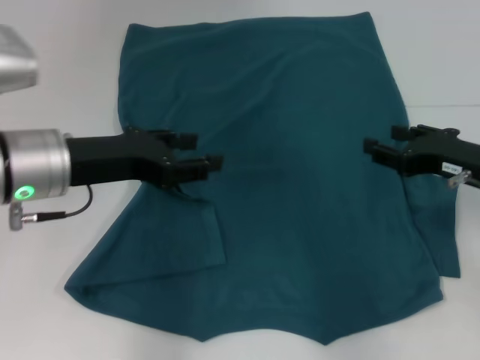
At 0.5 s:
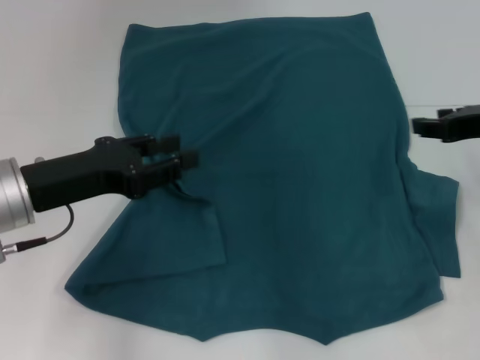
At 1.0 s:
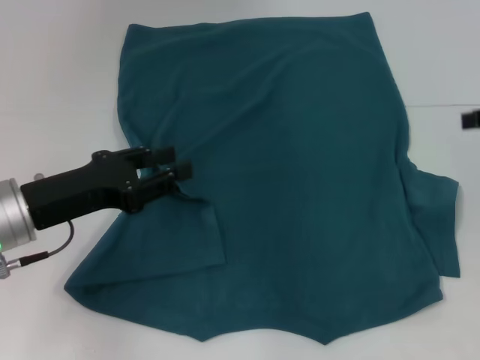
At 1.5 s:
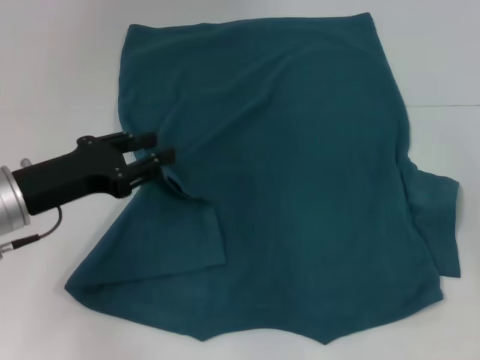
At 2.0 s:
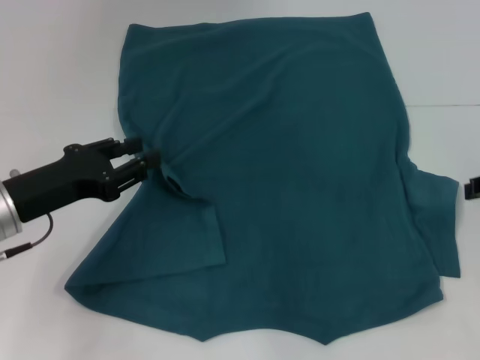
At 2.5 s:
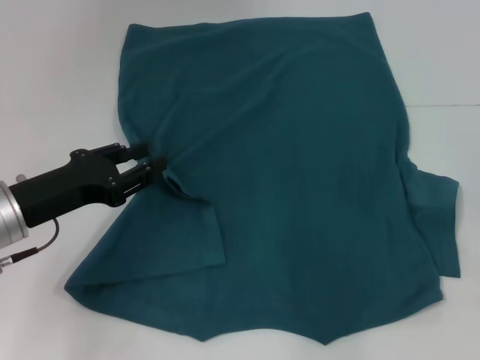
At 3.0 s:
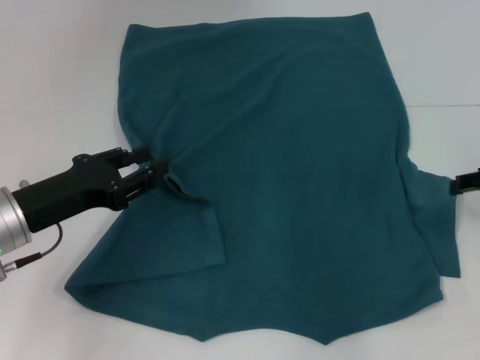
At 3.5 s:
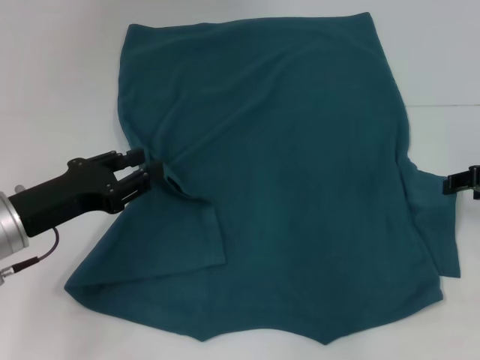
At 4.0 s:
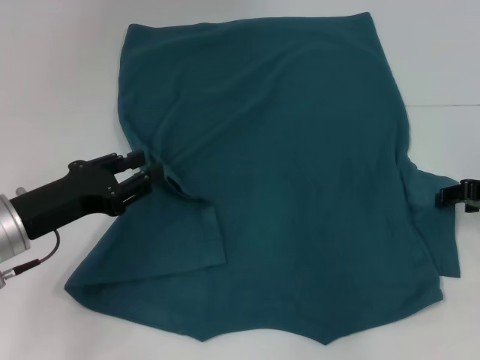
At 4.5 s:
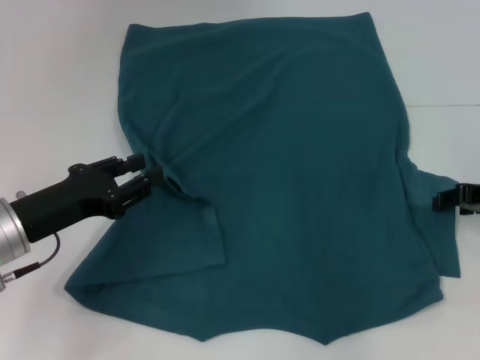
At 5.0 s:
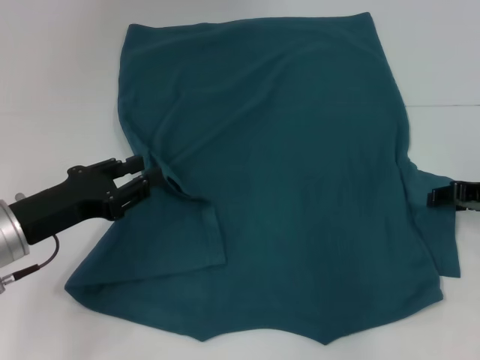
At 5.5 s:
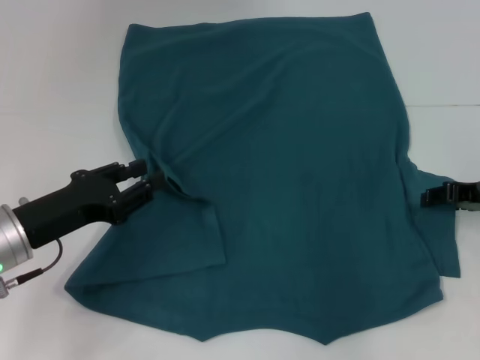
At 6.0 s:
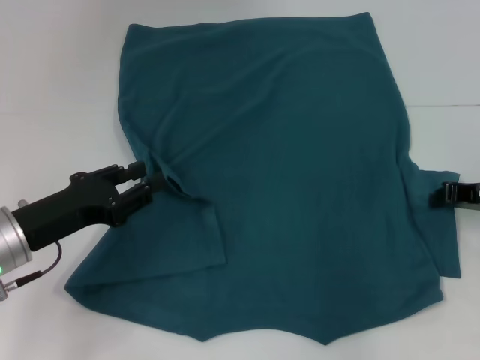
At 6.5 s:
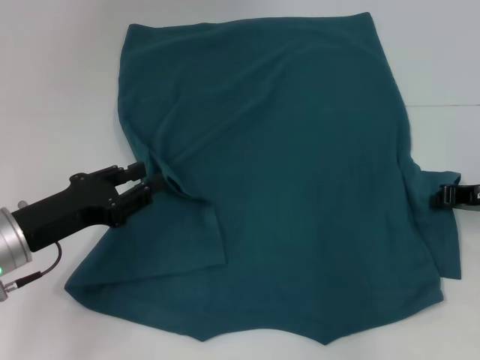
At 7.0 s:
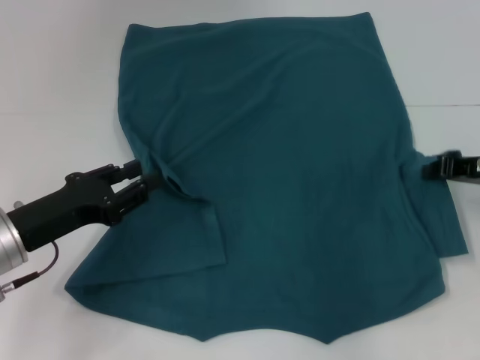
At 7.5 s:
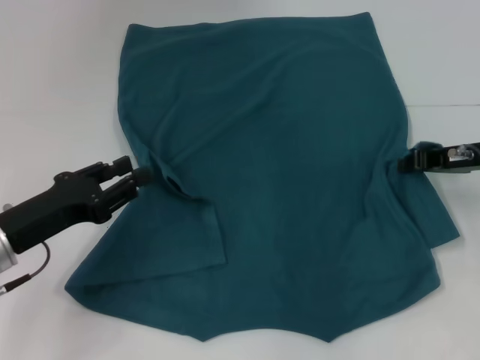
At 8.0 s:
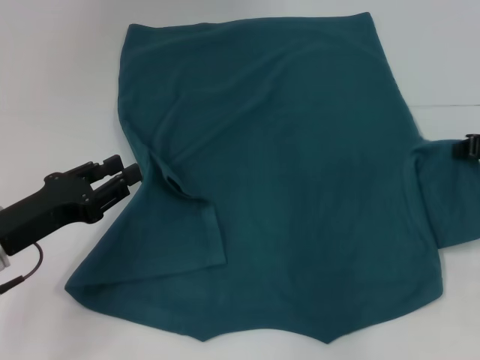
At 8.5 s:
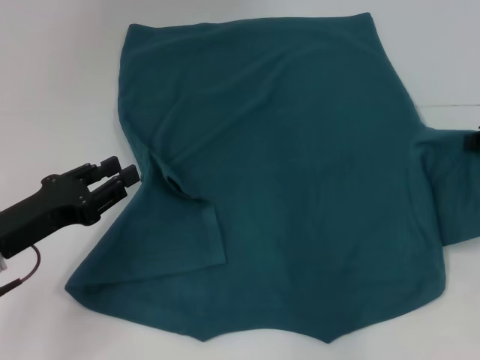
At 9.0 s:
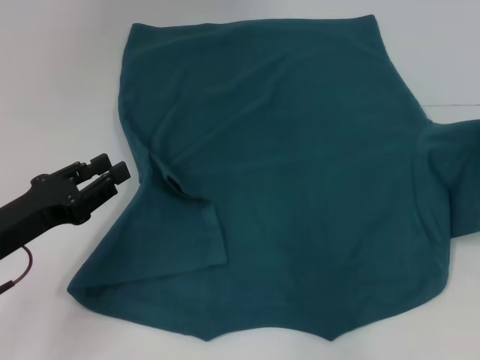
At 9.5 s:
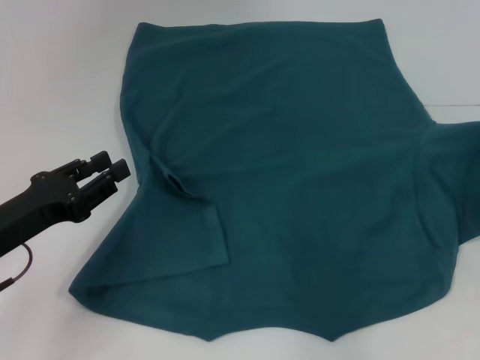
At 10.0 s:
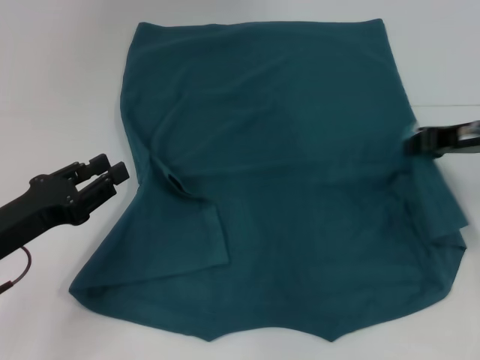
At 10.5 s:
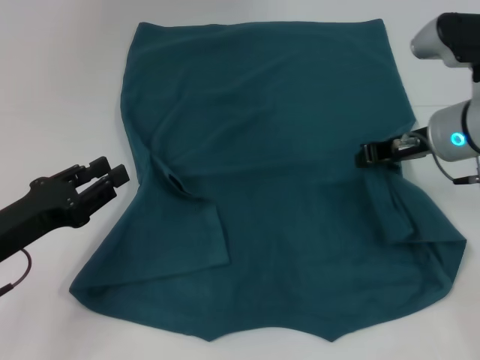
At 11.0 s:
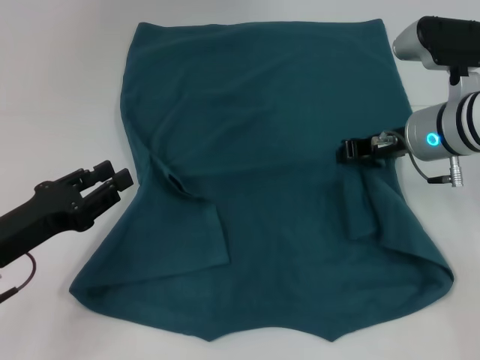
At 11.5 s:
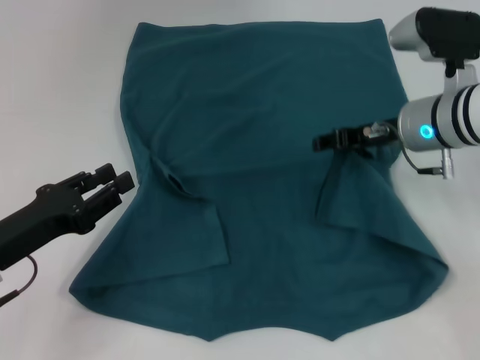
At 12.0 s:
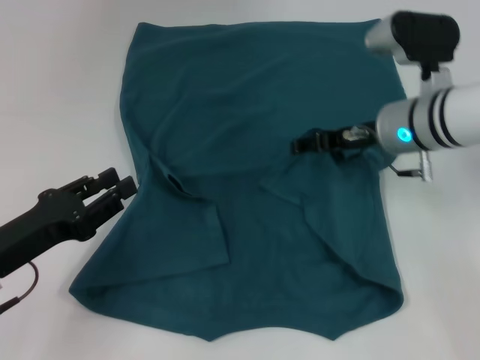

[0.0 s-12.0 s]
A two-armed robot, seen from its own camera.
0.0 to 2.0 s: The right gripper moves upward, about 5 cm. The left gripper moves downward and to the left, roughly 10 cm.
6.0 to 8.0 s: The right gripper travels upward by about 5 cm.
8.0 to 10.0 s: The right gripper ends up roughly 5 cm from where it was.
10.0 to 12.0 s: The right gripper is displaced to the left by roughly 10 cm, and opens.

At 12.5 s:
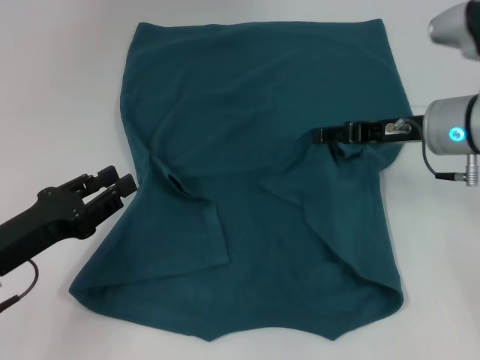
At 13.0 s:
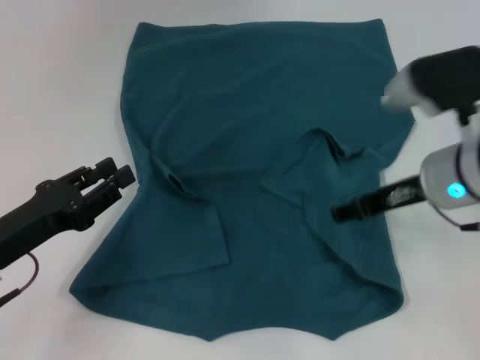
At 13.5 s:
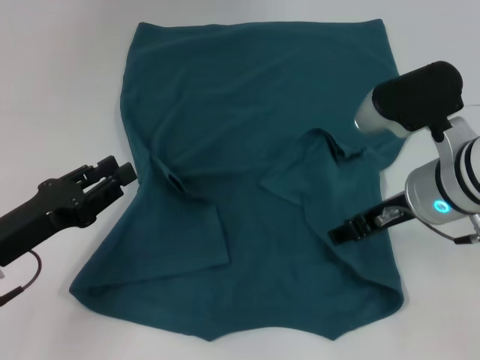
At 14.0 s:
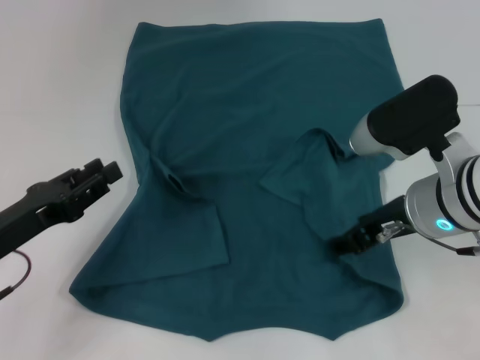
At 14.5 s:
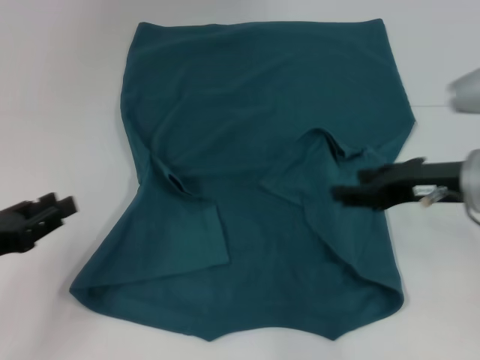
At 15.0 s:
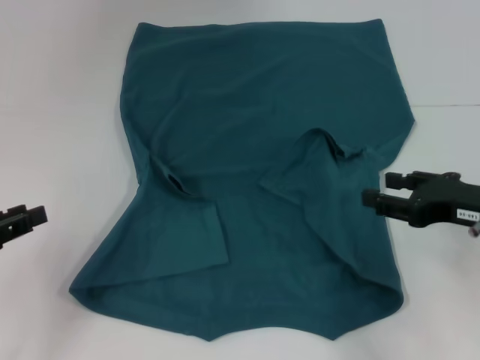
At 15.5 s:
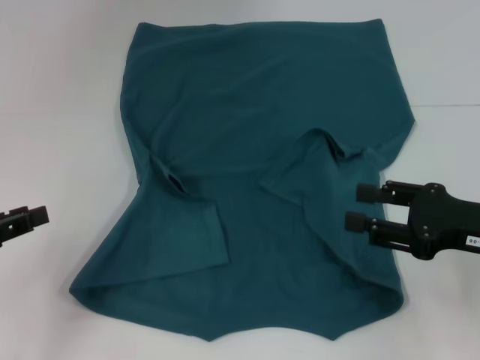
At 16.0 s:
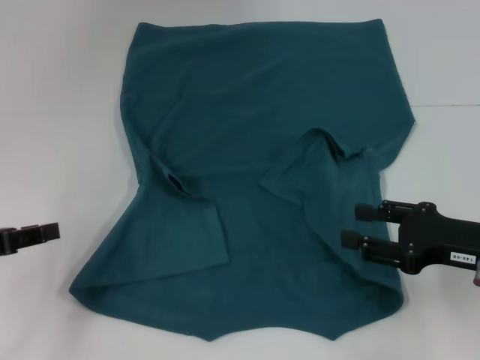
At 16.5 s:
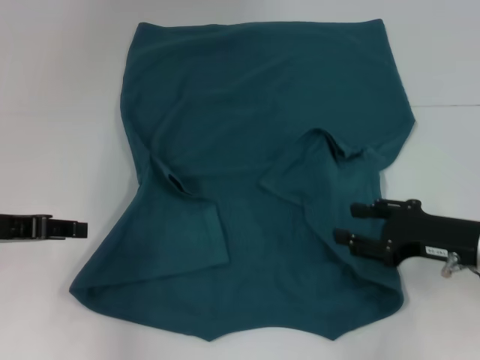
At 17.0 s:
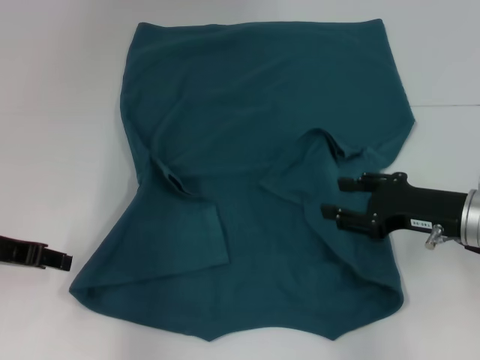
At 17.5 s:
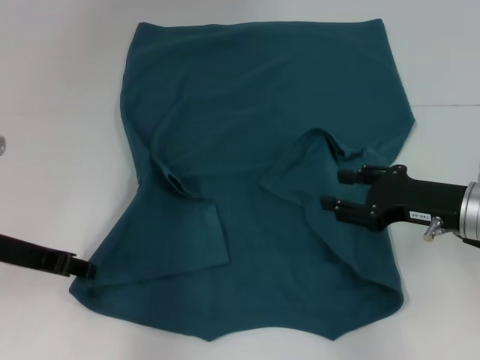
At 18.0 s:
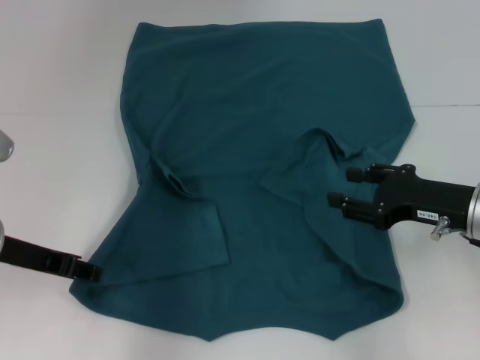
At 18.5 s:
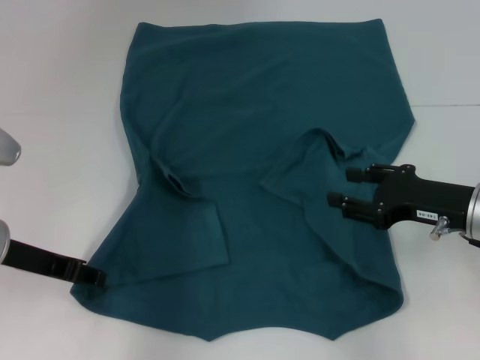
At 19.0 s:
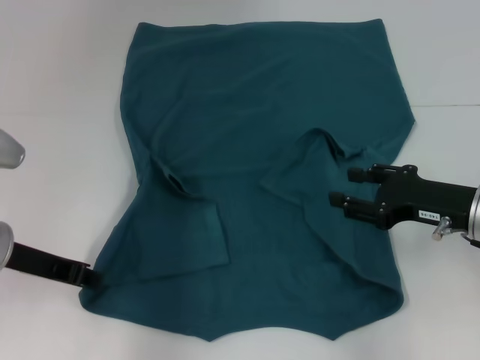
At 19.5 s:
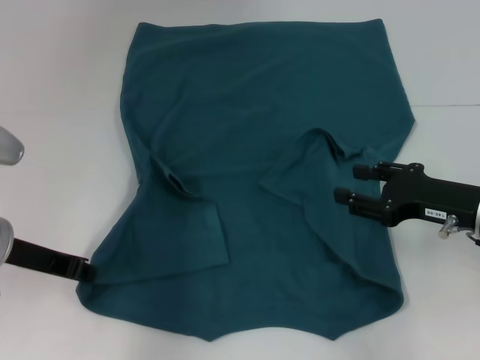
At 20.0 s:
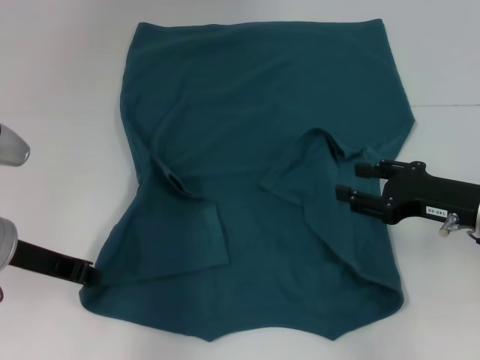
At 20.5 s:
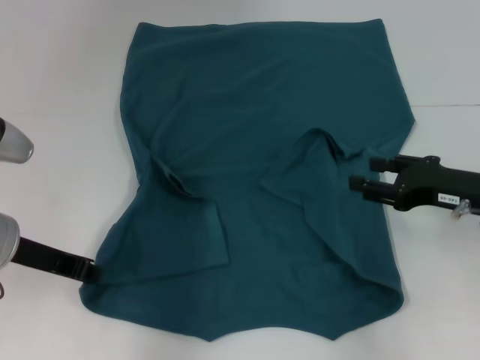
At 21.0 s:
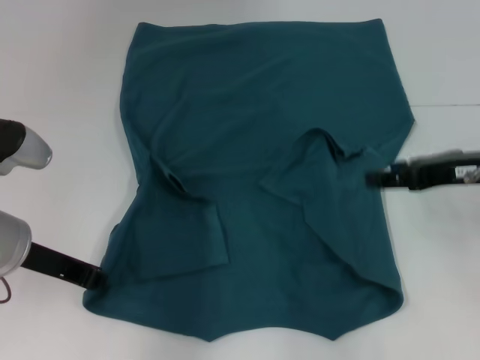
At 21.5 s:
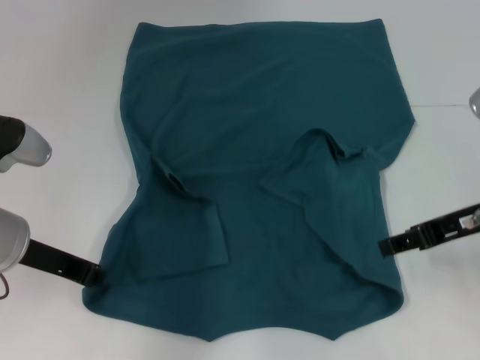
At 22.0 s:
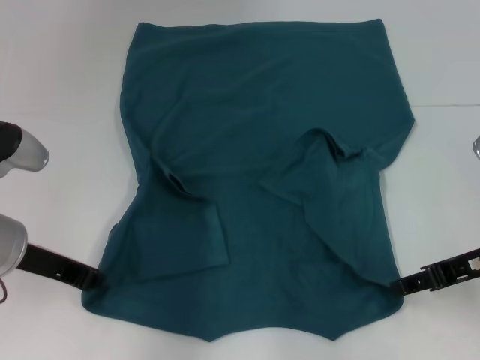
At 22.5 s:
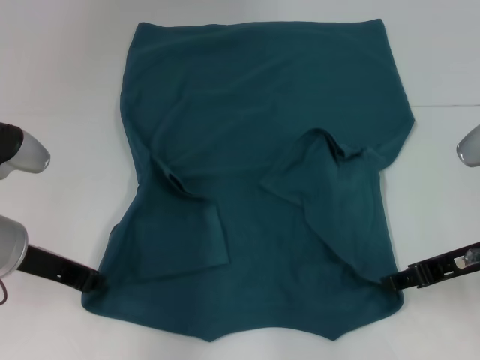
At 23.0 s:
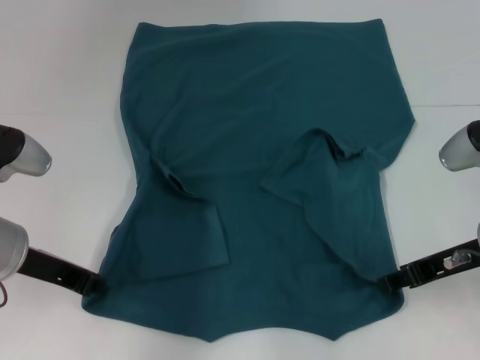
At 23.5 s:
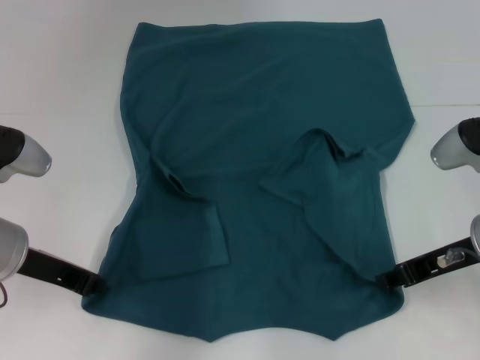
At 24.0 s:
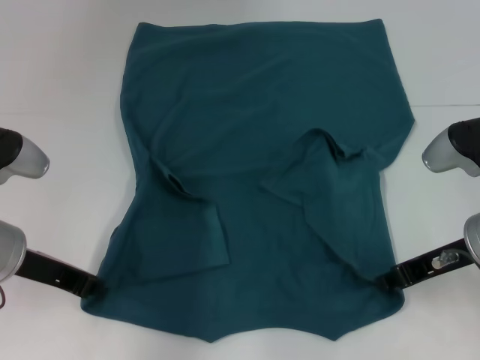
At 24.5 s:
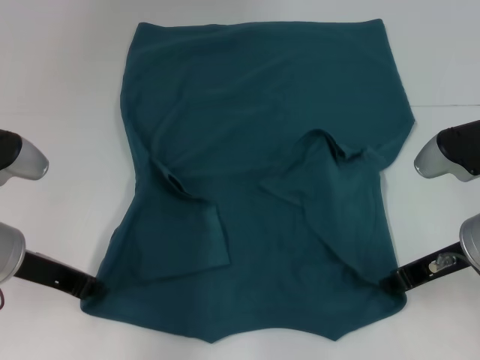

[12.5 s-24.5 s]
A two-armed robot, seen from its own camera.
12.5 to 14.5 s: The right gripper moves backward, approximately 10 cm; the left gripper shifts by some 5 cm.
14.5 to 16.5 s: The right gripper heads downward, covering about 10 cm. Meanwhile the left gripper goes approximately 10 cm forward and upward.
16.5 to 18.5 s: The grippers move only a little.
18.5 to 20.5 s: The left gripper closes.
20.5 to 22.5 s: The right gripper ends up about 5 cm from where it was.
22.5 to 24.5 s: The grippers stay close to where they were, moving slightly.

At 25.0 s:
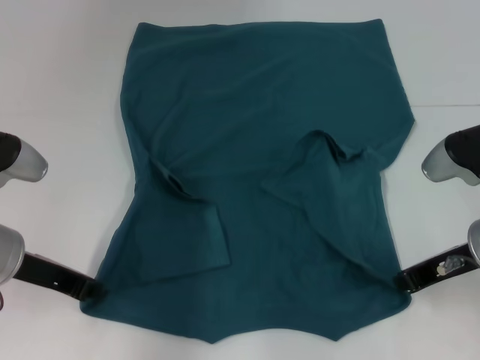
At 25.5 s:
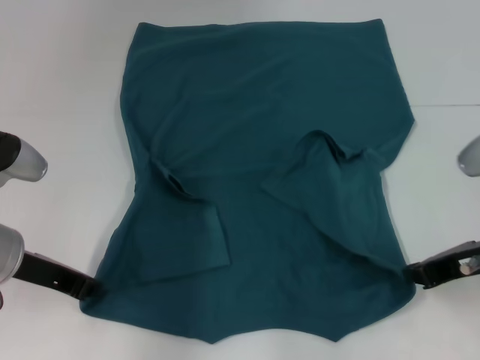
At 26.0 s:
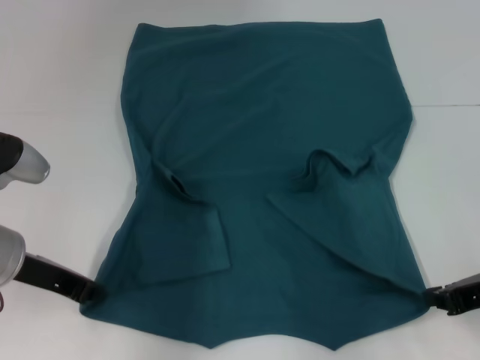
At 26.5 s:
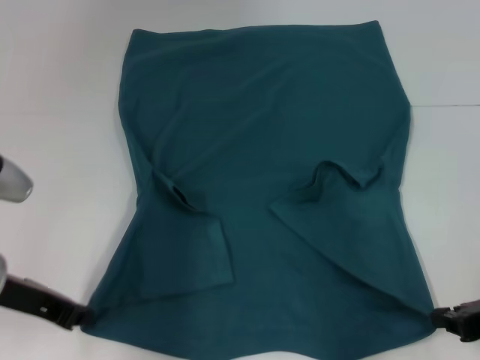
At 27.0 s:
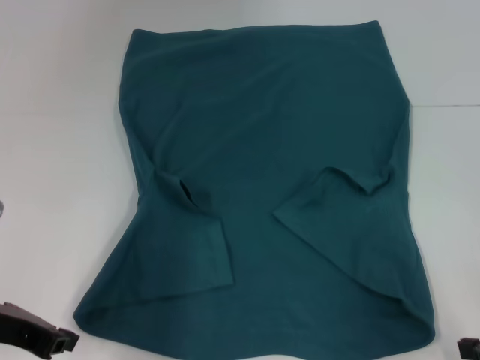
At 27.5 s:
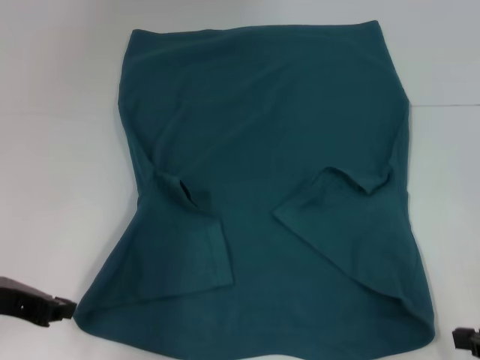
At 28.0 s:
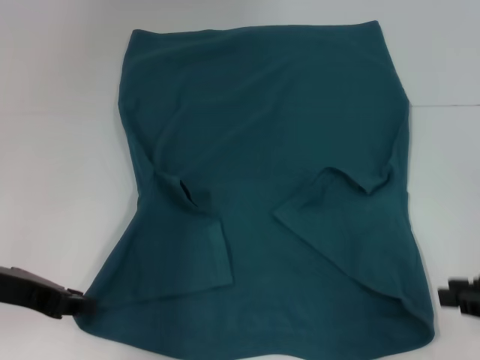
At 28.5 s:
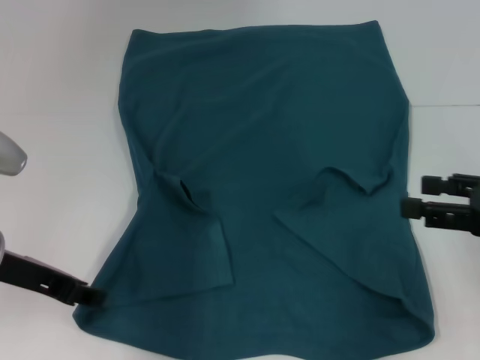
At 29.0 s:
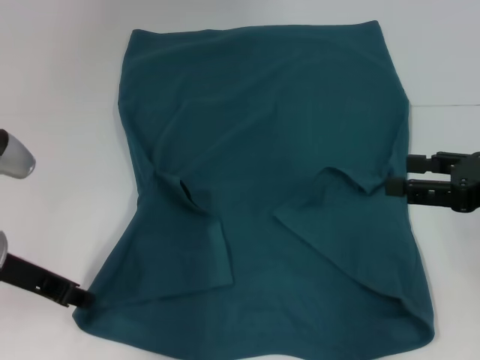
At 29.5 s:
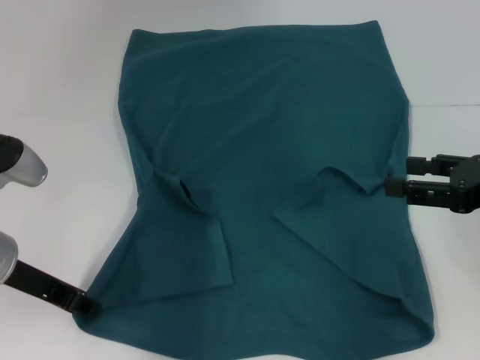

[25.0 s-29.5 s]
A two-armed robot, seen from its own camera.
25.0 to 27.0 s: The right gripper goes approximately 15 cm backward and to the right, while the left gripper heads backward, covering about 5 cm.
27.0 to 29.5 s: The left gripper travels forward by roughly 5 cm, and opens; the right gripper goes approximately 10 cm forward and upward, and opens its fingers.
